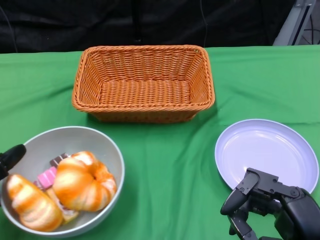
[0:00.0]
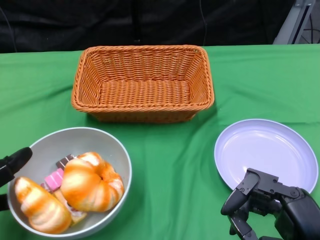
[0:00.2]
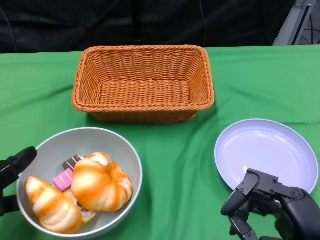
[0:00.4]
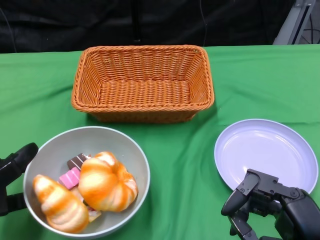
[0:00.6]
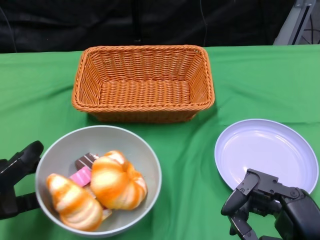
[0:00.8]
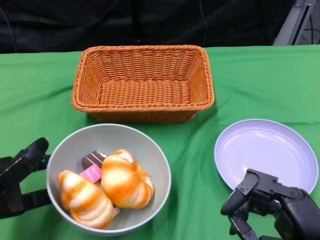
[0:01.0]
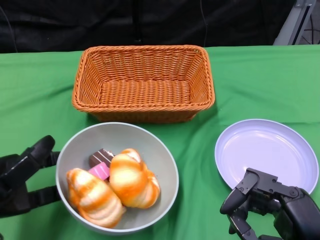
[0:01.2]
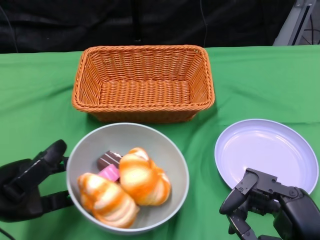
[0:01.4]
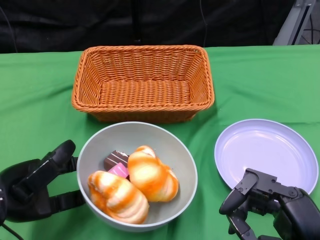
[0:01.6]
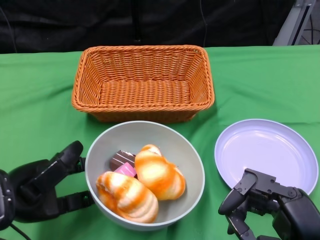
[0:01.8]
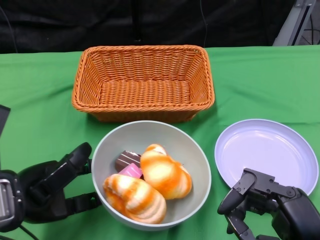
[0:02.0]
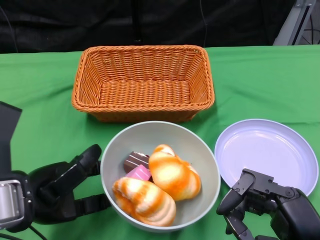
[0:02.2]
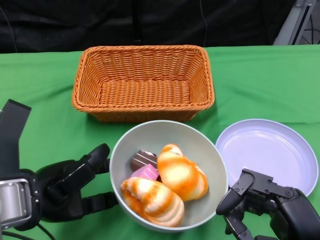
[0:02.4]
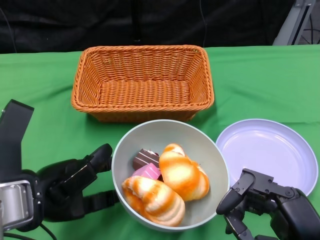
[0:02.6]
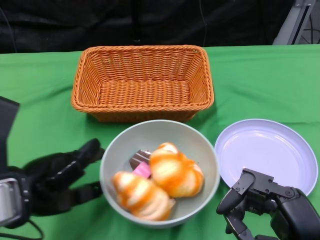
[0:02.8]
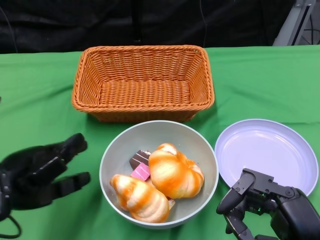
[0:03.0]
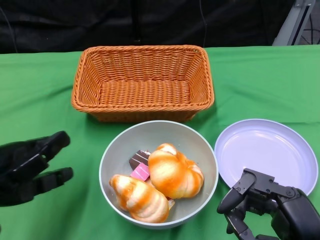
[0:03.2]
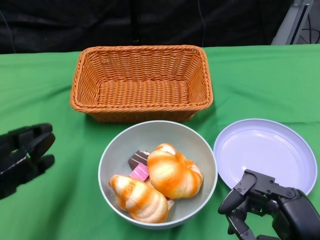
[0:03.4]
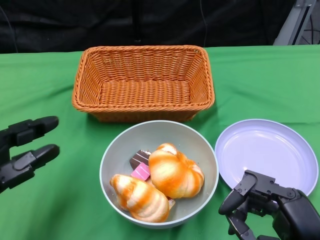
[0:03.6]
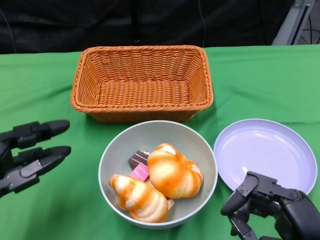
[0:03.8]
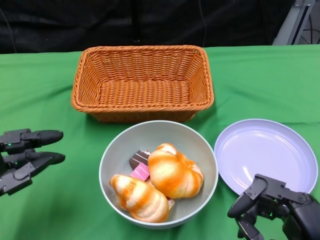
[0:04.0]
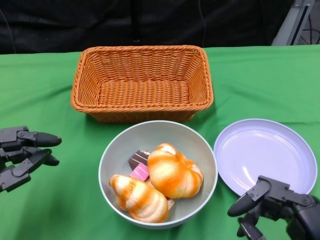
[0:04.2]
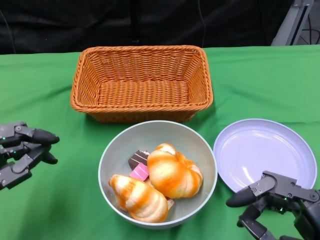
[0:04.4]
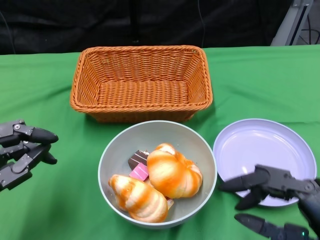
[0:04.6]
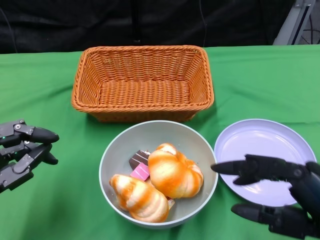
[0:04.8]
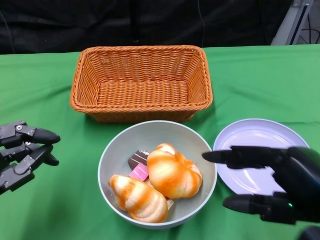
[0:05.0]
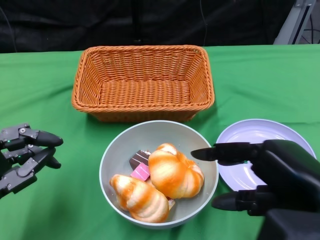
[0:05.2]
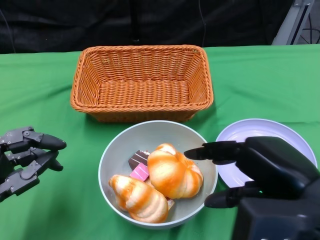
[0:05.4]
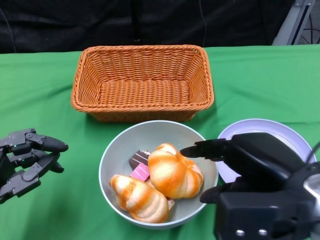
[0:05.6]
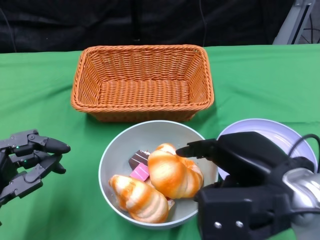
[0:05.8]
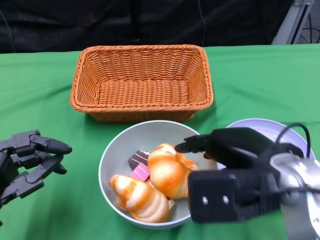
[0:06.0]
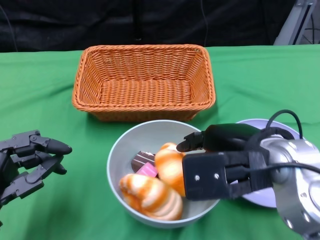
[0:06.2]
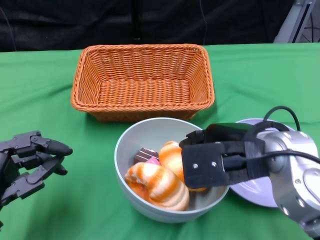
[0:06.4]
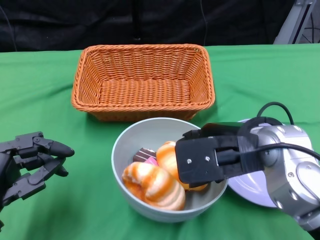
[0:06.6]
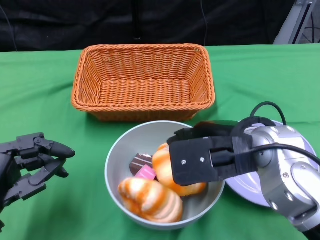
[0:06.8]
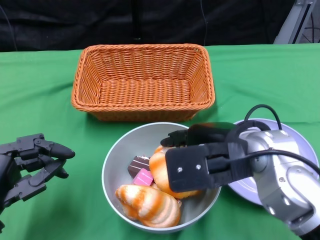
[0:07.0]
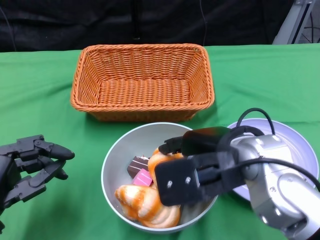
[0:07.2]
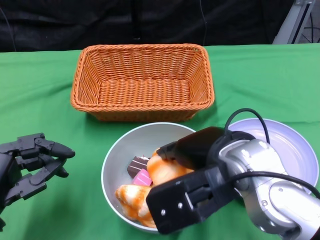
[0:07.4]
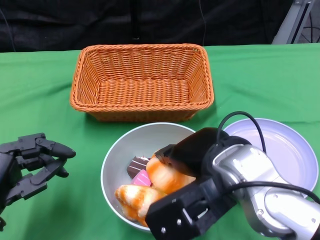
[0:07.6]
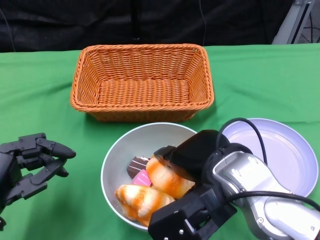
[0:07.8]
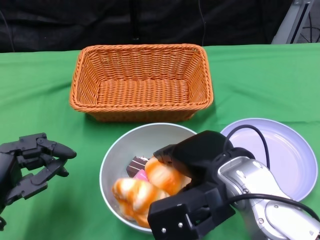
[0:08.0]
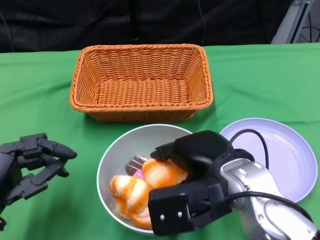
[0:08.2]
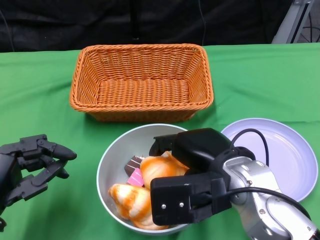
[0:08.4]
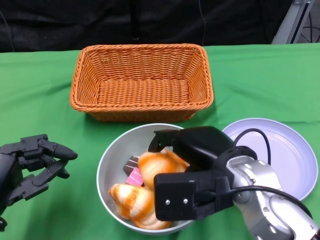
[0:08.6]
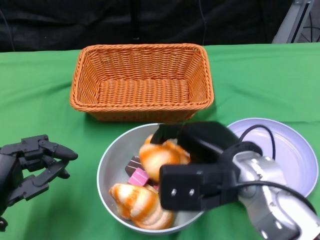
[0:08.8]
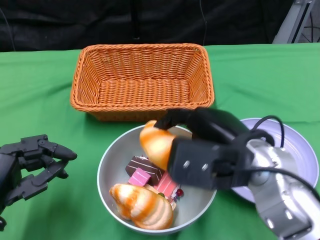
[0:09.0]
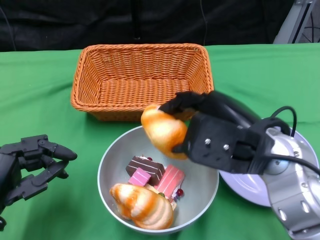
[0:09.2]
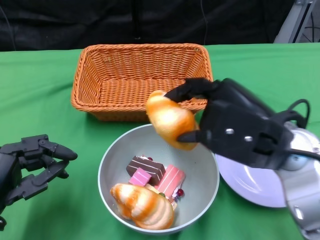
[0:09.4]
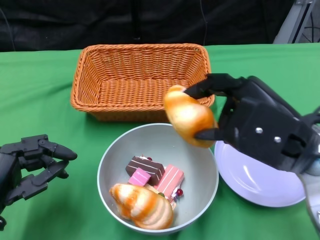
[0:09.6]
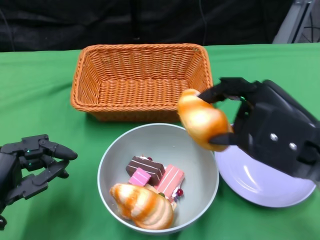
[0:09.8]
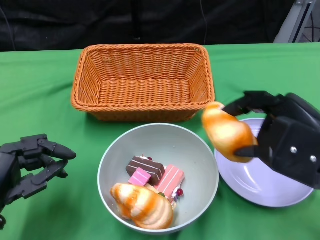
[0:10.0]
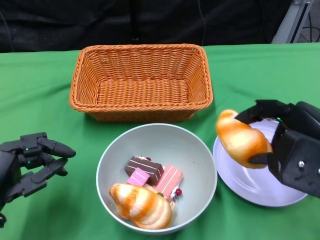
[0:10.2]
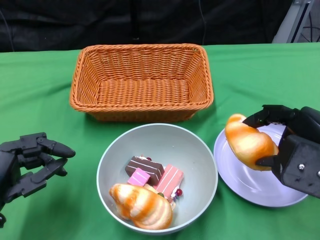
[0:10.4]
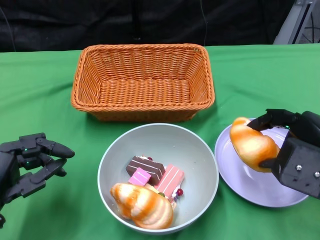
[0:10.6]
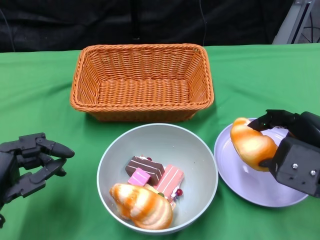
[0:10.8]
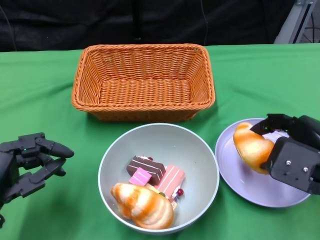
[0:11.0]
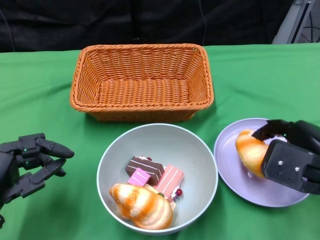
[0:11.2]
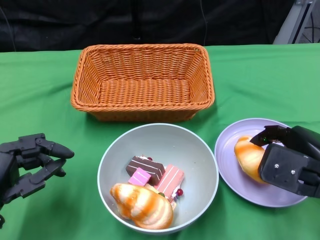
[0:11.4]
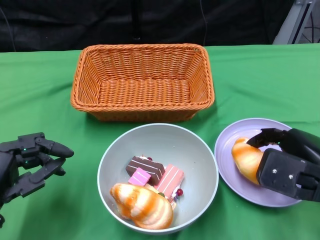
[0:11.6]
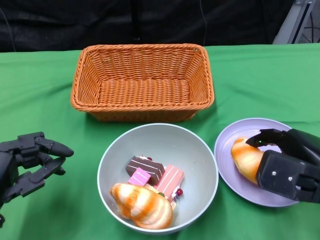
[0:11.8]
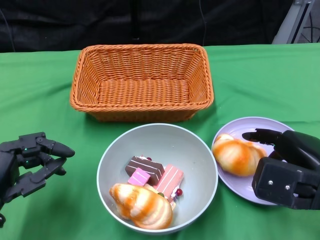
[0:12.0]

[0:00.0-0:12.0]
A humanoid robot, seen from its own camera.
Step, 0:00.0 to 0:03.2: Push the bowl to the center of the table using the left gripper.
0:00.0 to 0:01.6: The left hand travels to the right by approximately 5 cm.
0:03.0 to 0:04.4: The left hand is displaced downward by approximately 5 cm.
0:04.4 to 0:06.0: The right hand shifts about 15 cm forward, to the left and upward.
0:06.0 to 0:07.6: The right hand travels to the left by about 5 cm.
0:09.0 to 0:10.4: The right hand shifts roughly 10 cm to the right.
0:10.4 to 0:12.0: The right hand moves downward, about 5 cm.

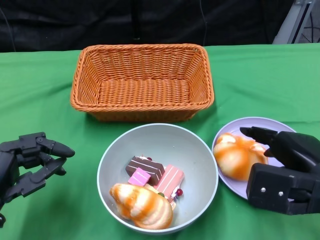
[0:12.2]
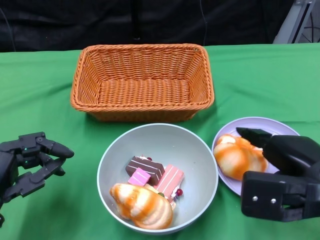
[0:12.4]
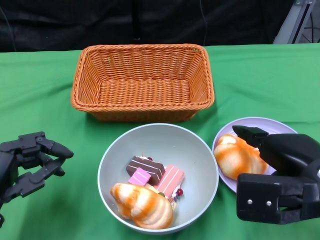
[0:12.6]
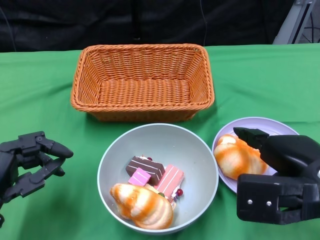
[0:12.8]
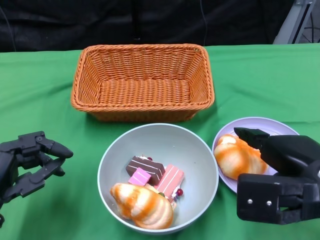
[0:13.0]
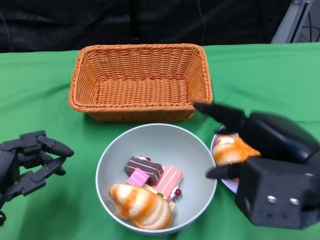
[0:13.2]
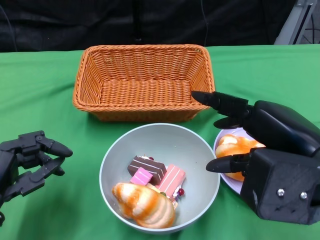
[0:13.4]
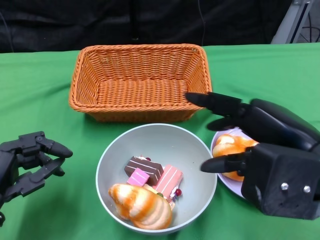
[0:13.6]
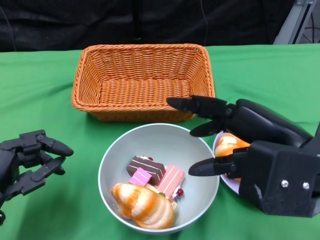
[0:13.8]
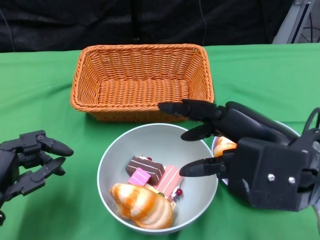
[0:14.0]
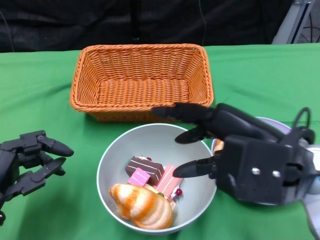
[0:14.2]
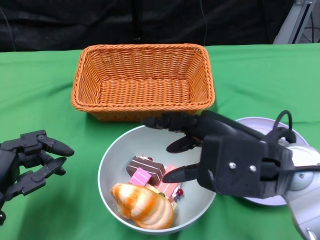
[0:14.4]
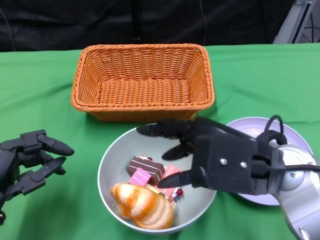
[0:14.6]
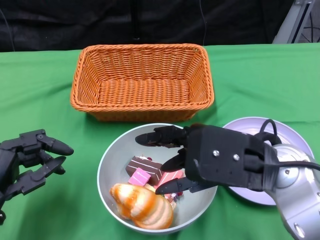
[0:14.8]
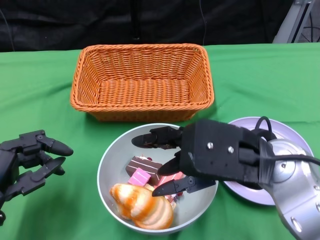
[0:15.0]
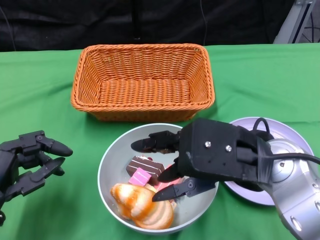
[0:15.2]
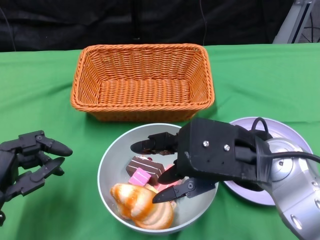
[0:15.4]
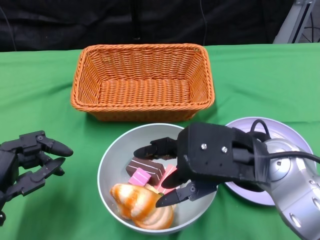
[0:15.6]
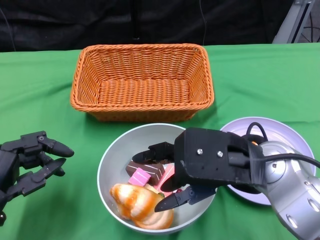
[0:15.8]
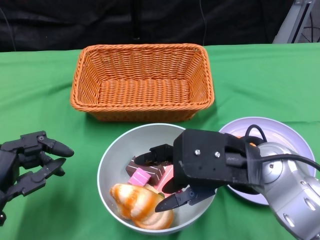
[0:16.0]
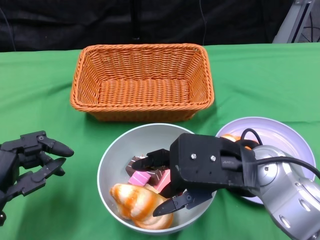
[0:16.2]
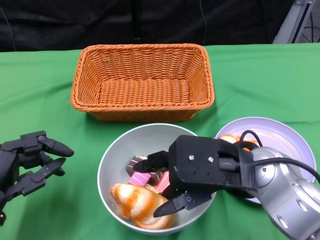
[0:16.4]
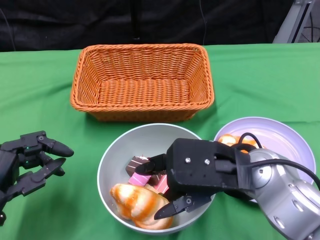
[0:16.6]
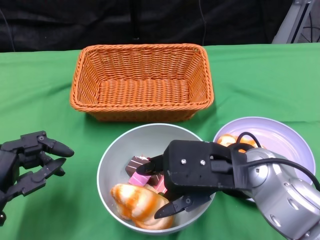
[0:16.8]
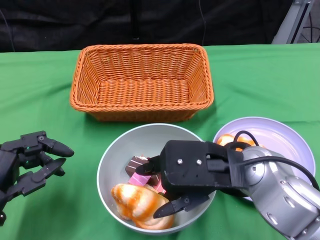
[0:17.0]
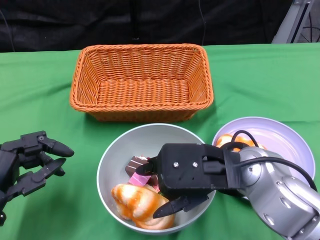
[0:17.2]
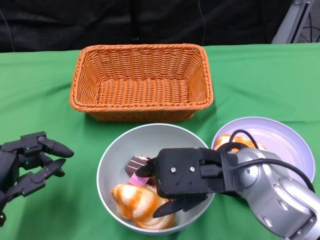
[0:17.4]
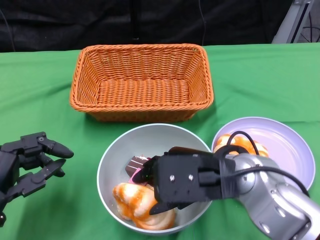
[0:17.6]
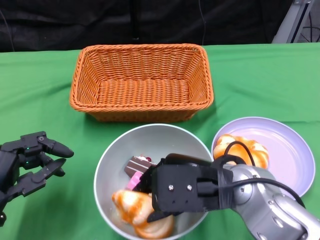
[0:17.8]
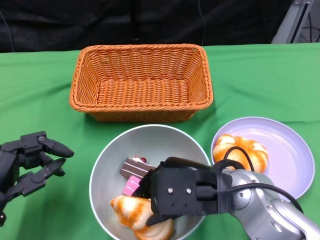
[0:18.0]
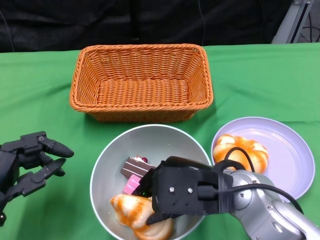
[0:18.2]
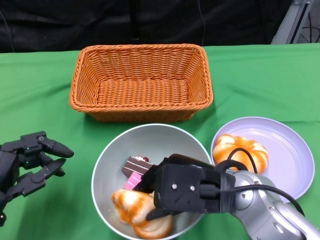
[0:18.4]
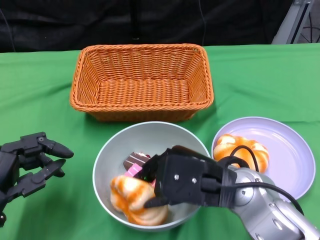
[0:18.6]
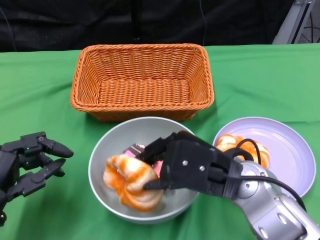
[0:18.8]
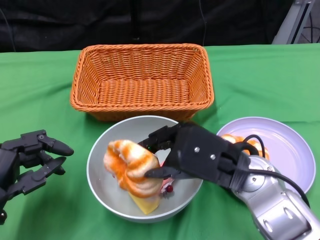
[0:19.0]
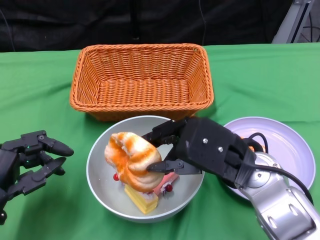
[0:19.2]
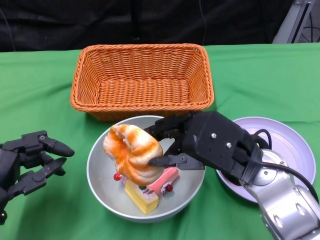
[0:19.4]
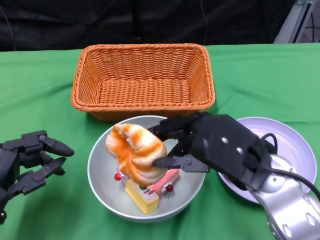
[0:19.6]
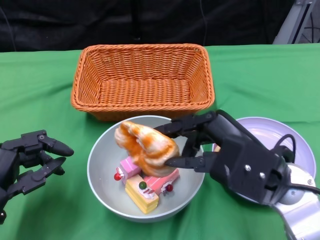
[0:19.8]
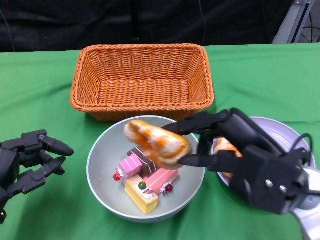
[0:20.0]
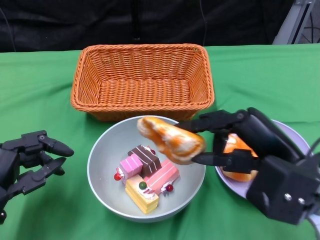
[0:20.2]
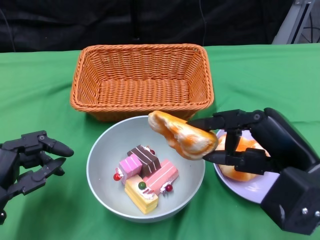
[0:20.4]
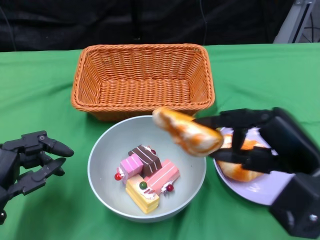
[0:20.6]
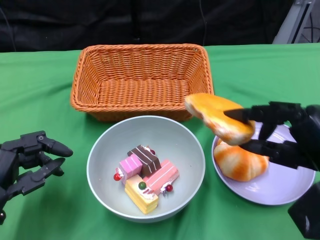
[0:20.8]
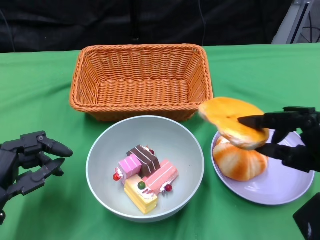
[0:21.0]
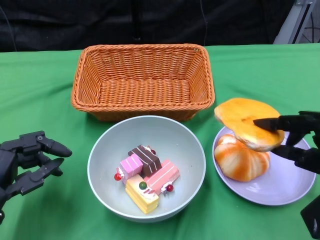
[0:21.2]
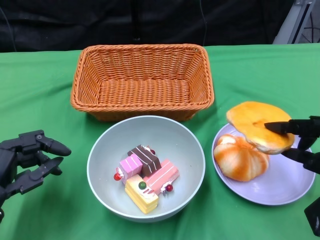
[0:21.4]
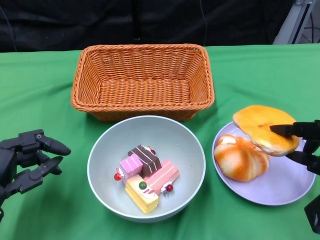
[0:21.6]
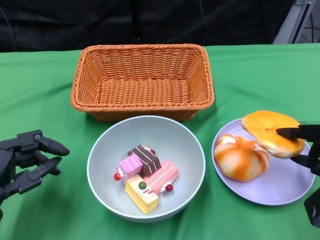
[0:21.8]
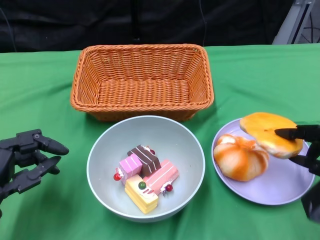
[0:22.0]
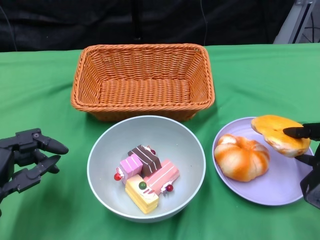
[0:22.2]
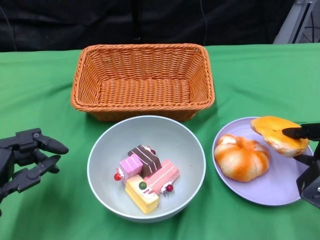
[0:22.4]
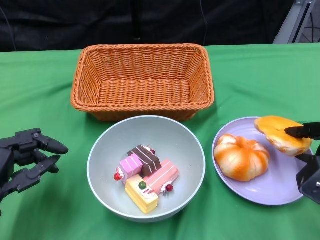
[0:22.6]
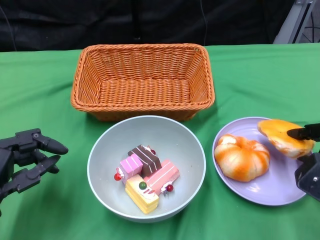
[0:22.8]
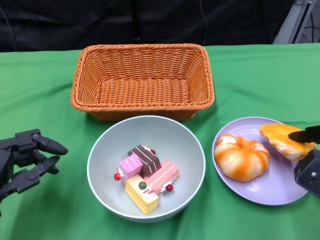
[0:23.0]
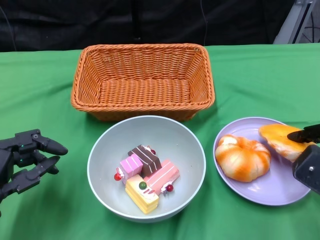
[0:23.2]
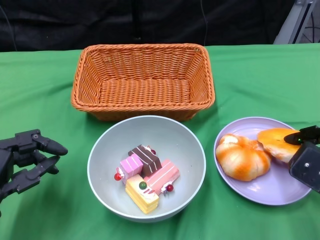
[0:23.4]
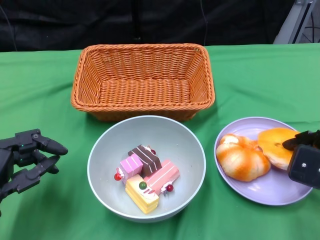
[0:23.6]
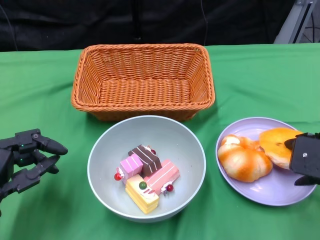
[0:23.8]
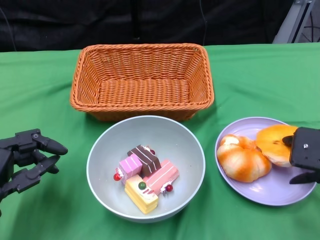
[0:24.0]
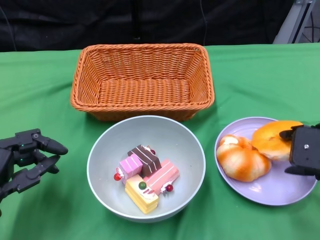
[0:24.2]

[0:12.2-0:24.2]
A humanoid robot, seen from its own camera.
0:12.2 to 0:13.8: The right hand moves upward, approximately 10 cm.
0:13.8 to 0:15.2: The right hand goes about 5 cm to the left.
0:15.2 to 0:16.6: The hands stay close to where they were, moving slightly.
0:18.2 to 0:19.8: The right hand moves approximately 5 cm.
0:19.8 to 0:21.2: The right hand shifts roughly 10 cm to the right.
0:21.2 to 0:22.6: The right hand heads downward, covering some 5 cm.
0:22.6 to 0:24.2: The right hand heads upward, covering some 10 cm.
